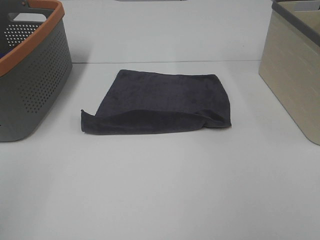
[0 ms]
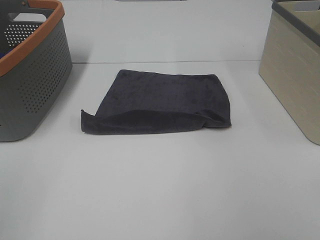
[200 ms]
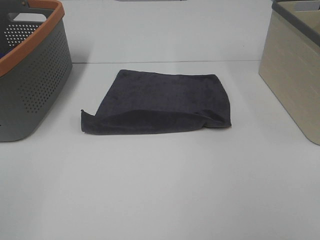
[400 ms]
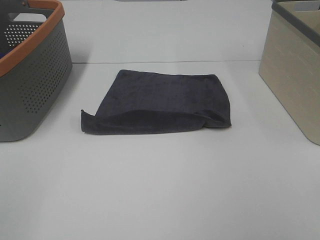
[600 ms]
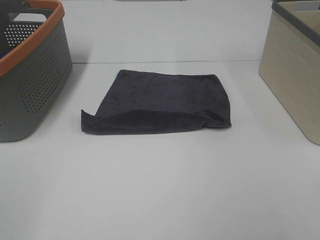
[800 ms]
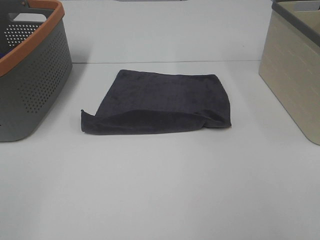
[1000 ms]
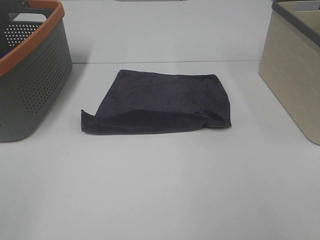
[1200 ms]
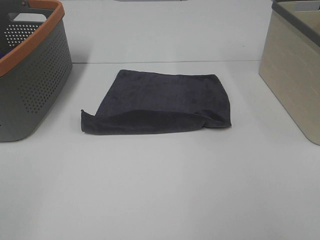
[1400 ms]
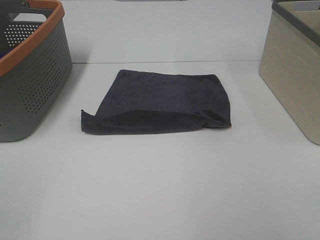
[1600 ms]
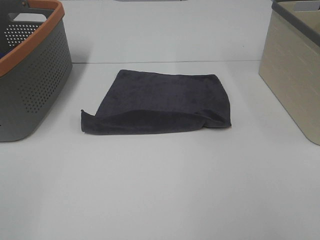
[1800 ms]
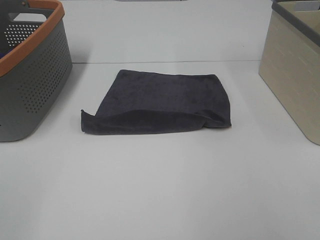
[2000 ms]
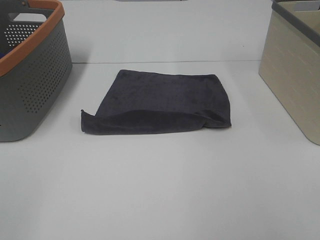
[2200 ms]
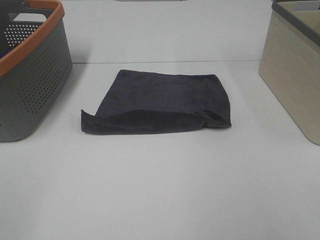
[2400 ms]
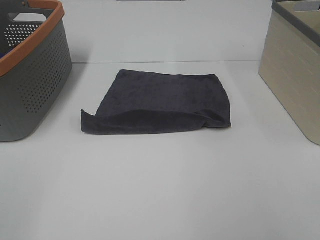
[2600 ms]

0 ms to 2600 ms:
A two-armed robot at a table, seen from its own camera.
Task of the whole recording: Remove the towel and place it.
1200 ms to 2600 ms: Both grippers stay about where they are.

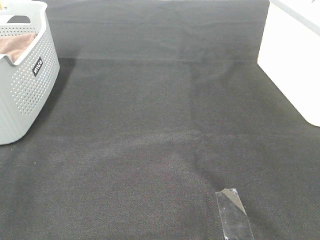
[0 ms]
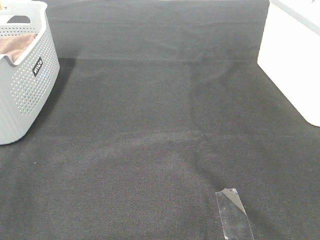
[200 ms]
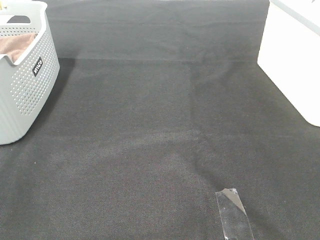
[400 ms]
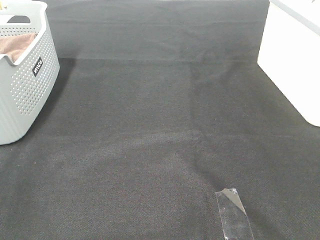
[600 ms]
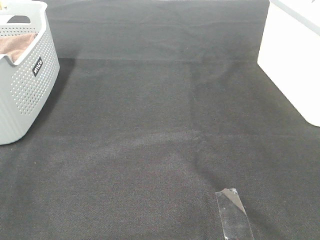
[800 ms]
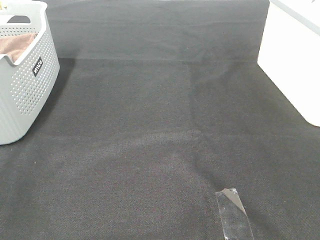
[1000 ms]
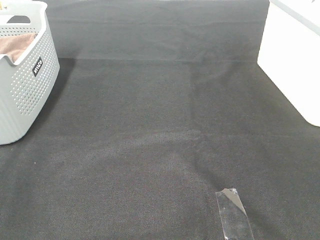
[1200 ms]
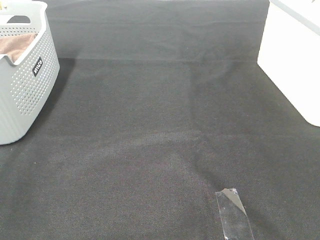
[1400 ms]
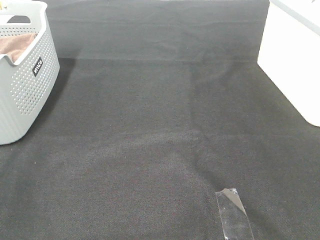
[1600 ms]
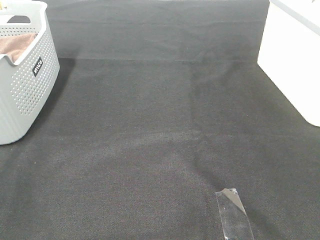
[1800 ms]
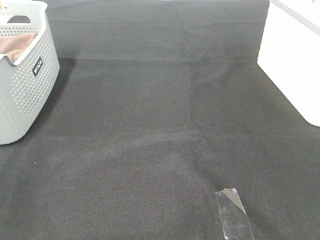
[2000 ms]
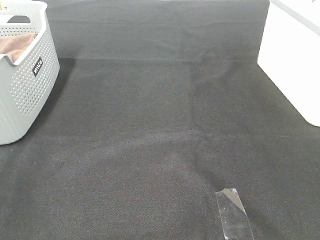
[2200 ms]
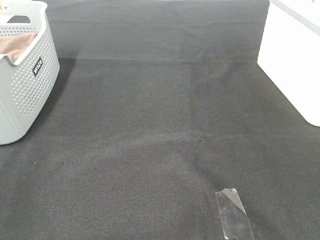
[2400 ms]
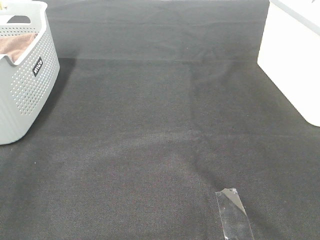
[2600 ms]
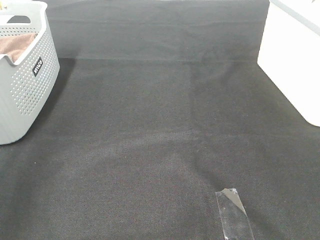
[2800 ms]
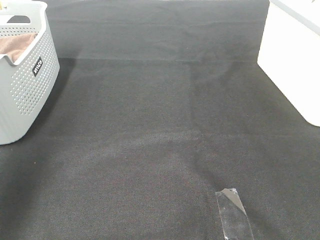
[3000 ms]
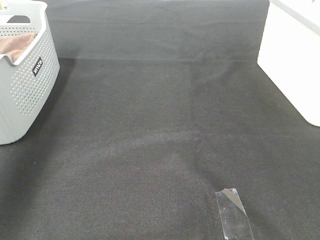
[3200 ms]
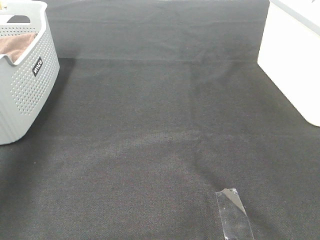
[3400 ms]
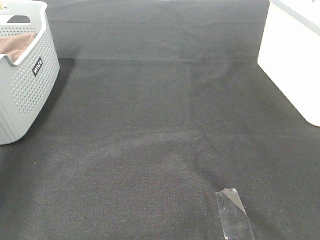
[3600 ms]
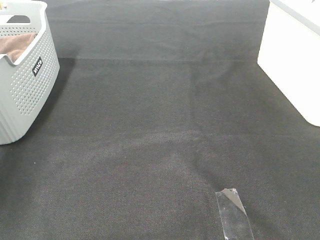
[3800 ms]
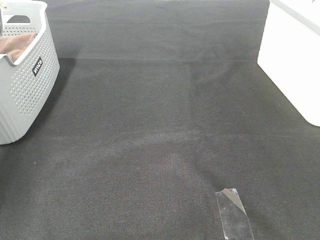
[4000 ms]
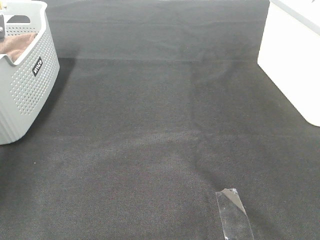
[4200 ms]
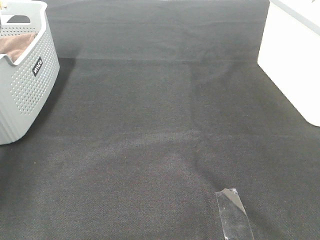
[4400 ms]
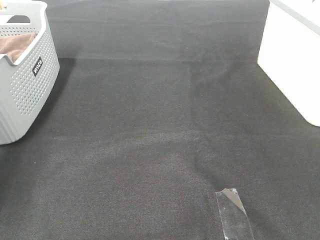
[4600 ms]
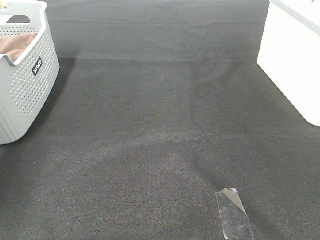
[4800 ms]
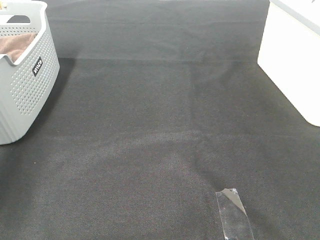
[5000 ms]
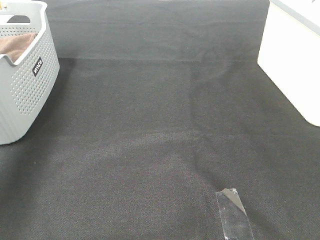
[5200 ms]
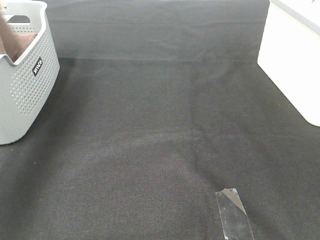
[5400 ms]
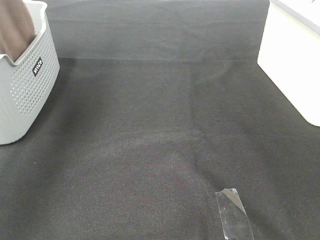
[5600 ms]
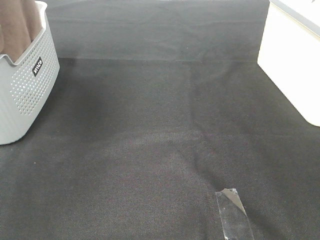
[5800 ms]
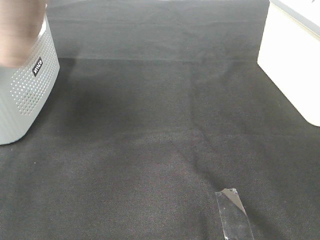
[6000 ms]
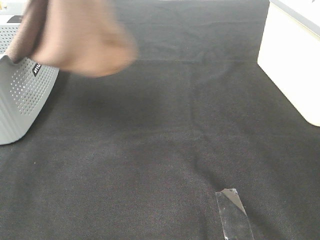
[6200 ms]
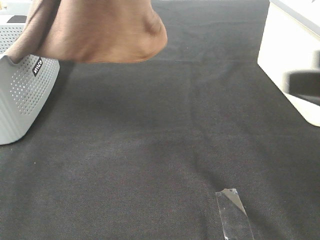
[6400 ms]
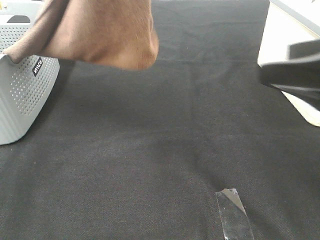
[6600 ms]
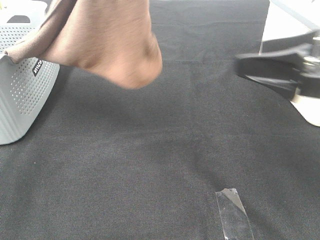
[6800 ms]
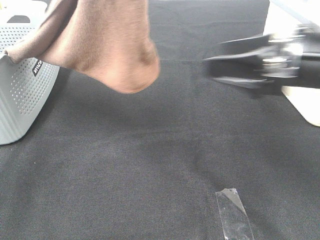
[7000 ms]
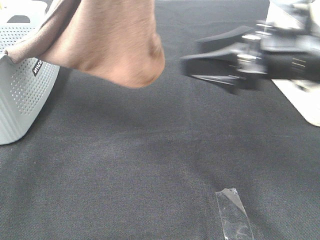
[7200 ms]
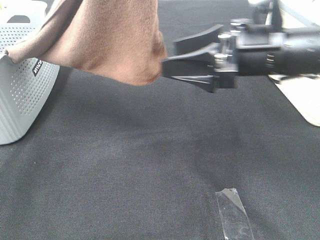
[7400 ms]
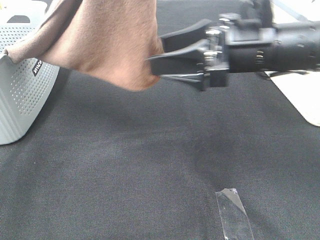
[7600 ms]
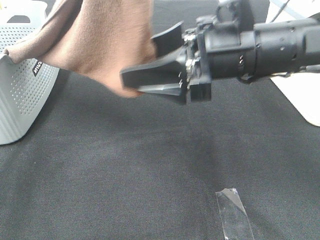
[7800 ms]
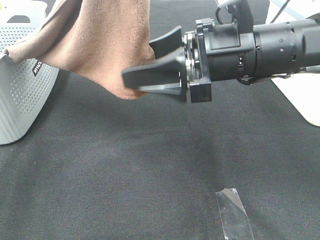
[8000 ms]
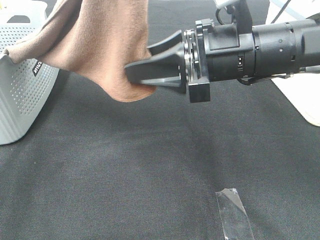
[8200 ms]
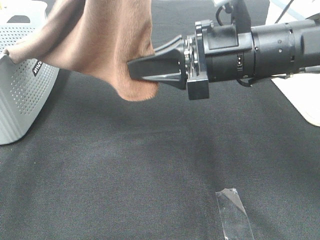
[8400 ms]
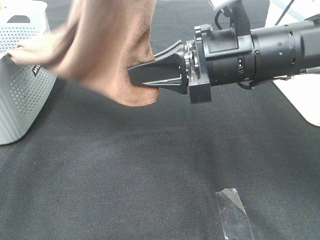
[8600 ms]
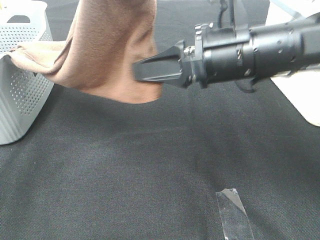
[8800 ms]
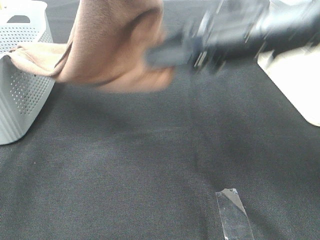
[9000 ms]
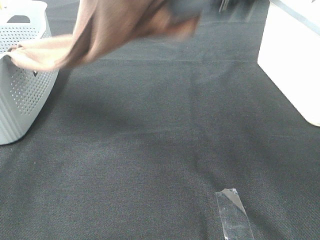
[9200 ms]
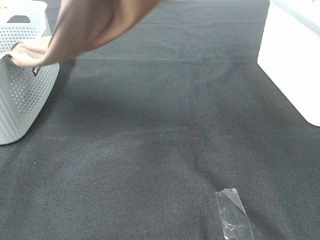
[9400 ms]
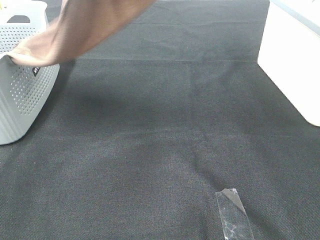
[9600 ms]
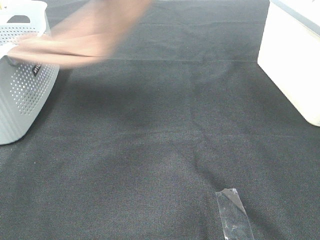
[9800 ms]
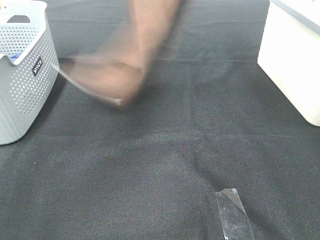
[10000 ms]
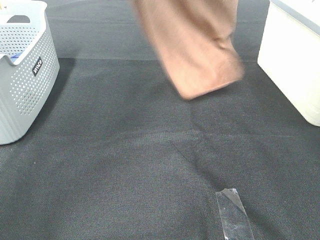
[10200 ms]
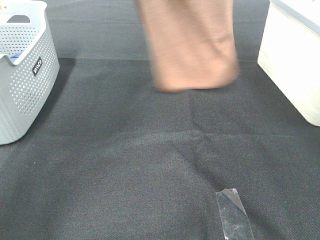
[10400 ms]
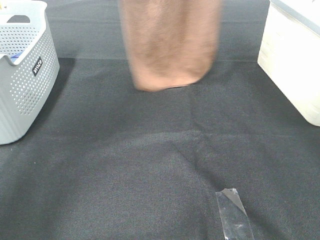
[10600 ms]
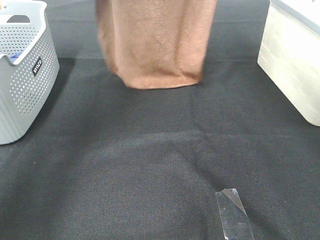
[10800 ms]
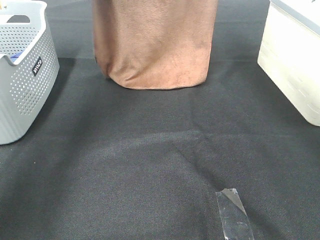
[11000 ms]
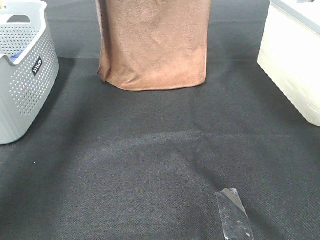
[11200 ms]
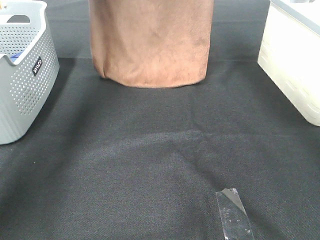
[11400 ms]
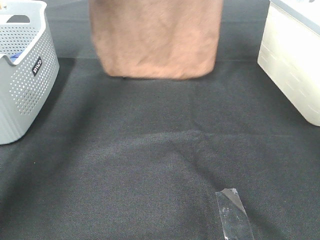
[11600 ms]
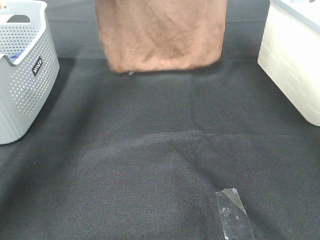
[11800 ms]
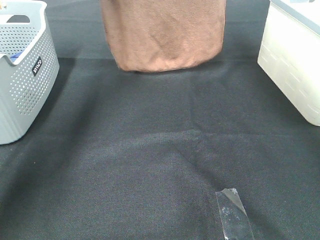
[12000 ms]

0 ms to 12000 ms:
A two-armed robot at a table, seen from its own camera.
Task of the whole recording: Remove the towel and place it.
Step, 6000 ms to 9000 ms: Right hand: grab a corner of the brown towel and straighten it.
0 ms to 1600 ms: Both grippers stay about where they are.
1600 ms to 3000 ms: The left gripper is displaced forward and upward by approximately 30 cm.
3000 ms to 4400 ms: The left gripper shifts roughly 30 cm forward and downward, and closes.
4400 ms to 6000 ms: The left gripper shifts some 40 cm upward, to the right and backward; the right gripper shifts by some 5 cm.
6000 ms to 7600 ms: The left gripper heads to the right and backward, covering some 10 cm. Meanwhile the right gripper moves forward and to the left, roughly 25 cm.
7600 ms to 9000 ms: The right gripper shifts approximately 5 cm upward, and closes its fingers.
9000 ms to 10400 ms: The left gripper travels forward by roughly 20 cm. Meanwhile the right gripper shifts about 25 cm upward and forward.
10400 ms to 12000 ms: The two grippers go roughly 10 cm forward.

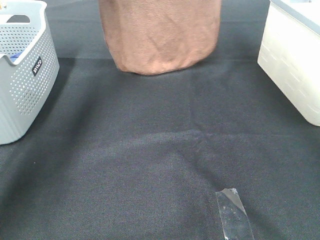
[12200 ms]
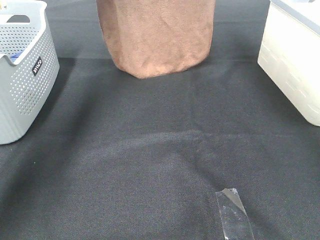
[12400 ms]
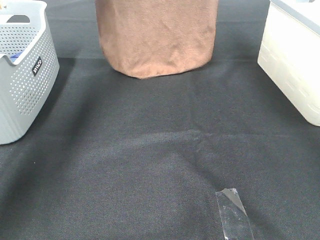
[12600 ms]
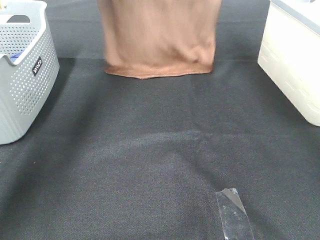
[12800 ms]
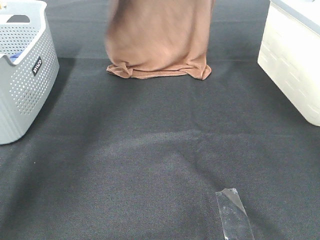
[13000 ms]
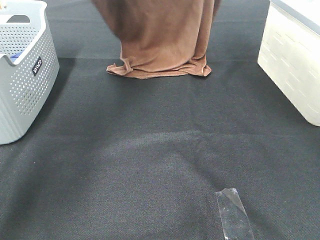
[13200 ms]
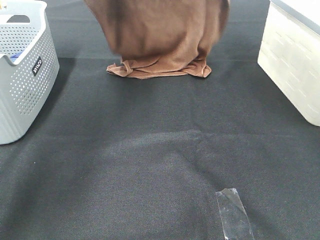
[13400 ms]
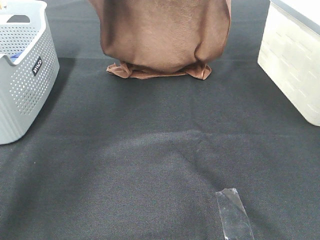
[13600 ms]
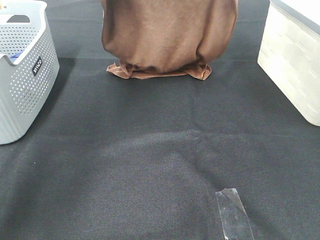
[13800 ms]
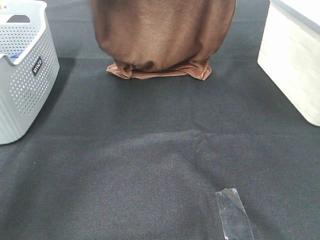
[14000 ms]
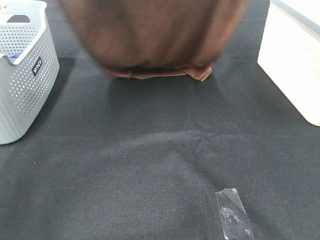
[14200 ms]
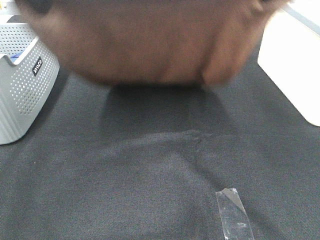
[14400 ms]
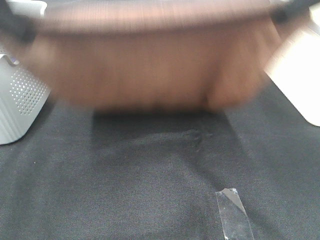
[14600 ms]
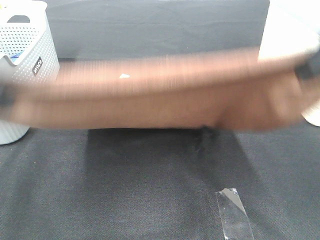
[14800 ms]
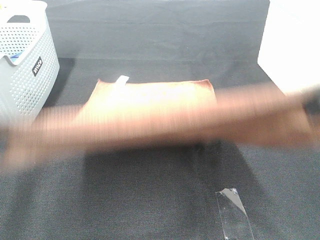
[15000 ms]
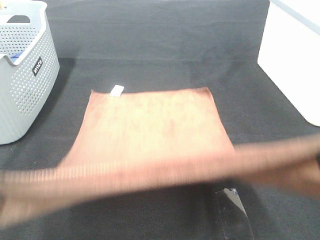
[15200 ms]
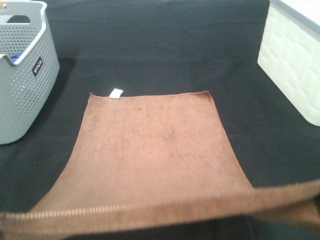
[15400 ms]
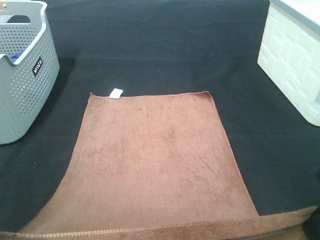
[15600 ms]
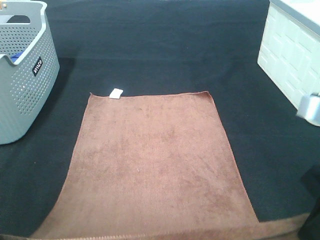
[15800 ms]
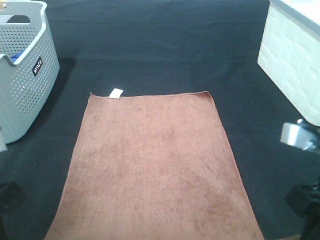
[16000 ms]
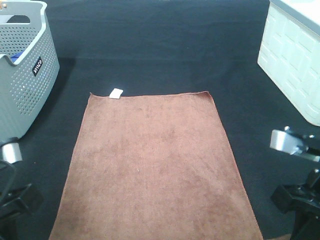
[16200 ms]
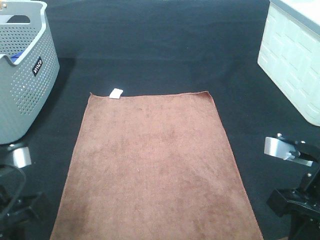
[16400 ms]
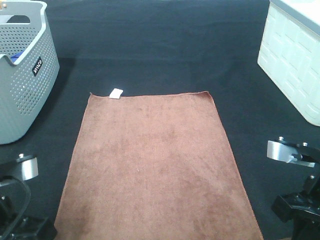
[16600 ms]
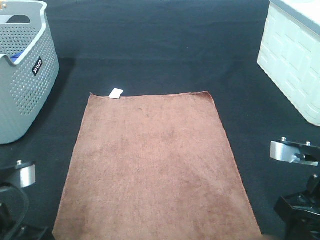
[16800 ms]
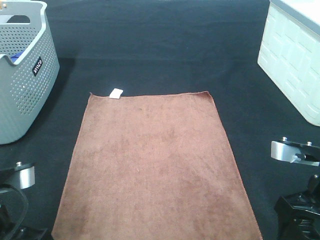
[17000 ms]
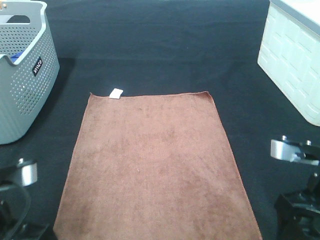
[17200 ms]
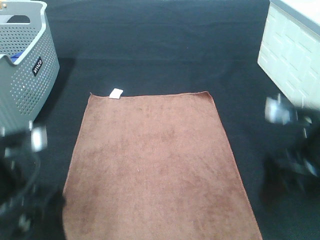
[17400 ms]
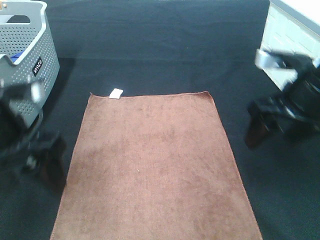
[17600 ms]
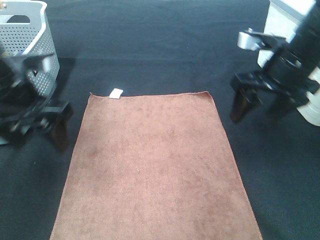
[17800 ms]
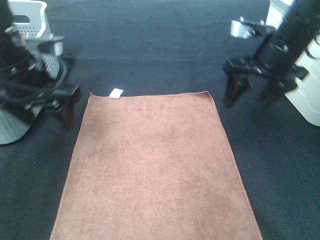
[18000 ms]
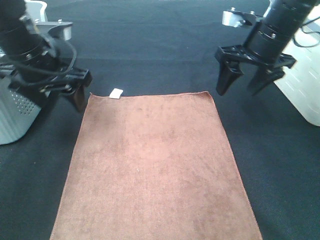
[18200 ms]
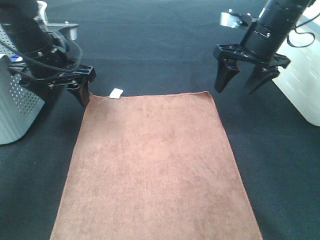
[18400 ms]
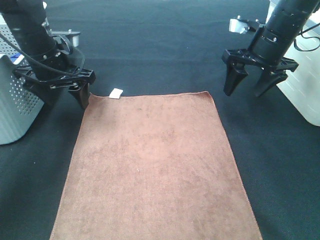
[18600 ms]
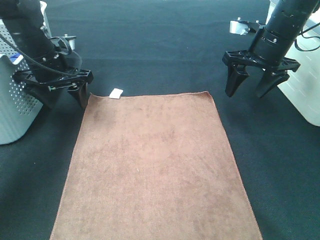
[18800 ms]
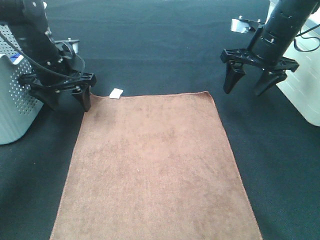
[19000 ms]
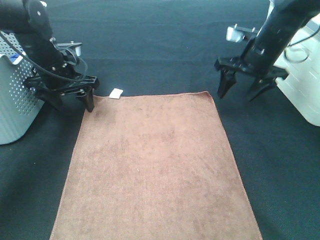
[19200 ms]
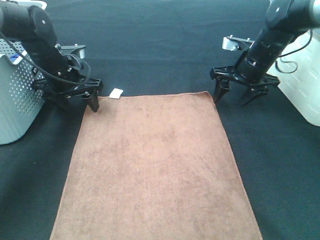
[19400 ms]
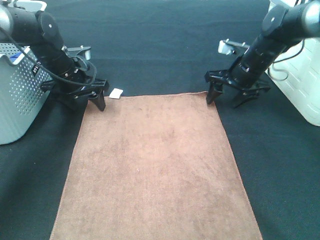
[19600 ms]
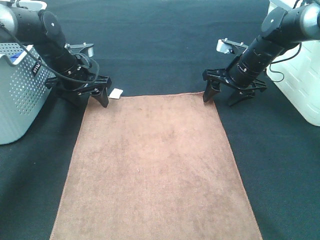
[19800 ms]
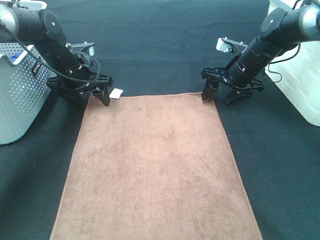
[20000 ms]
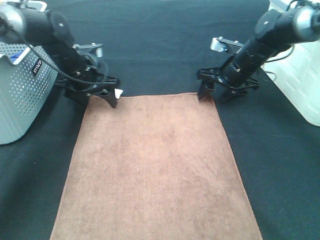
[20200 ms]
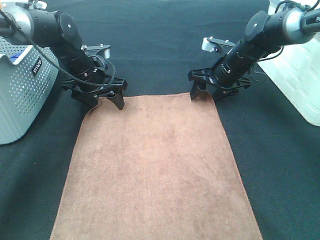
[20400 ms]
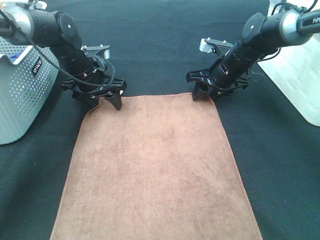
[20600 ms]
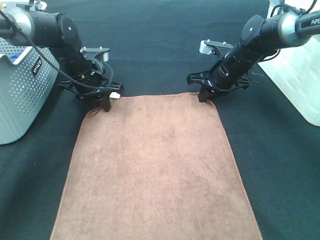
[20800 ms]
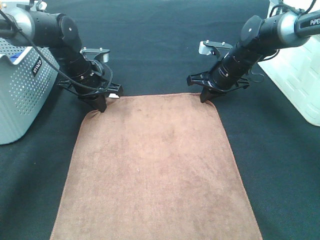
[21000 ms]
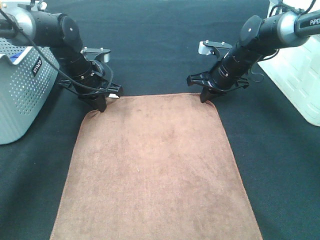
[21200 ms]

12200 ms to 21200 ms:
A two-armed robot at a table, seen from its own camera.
Task of the whole recording: Remove the towel and place it.
Step, 13800 ms to 19400 ms: Left hand:adjust the brown towel.
Step, 13800 ms to 20400 ms: Right hand:adjust the brown towel.
12200 ms to 13800 ms: The grippers both shift backward by some 5 cm.
13800 ms to 15200 ms: The two grippers go some 35 cm backward.
15200 ms to 16600 ms: The grippers both shift downward by approximately 15 cm.
16600 ms to 18200 ms: Both grippers move forward, some 25 cm. The right gripper opens its fingers, while the left gripper opens its fingers.
18200 ms to 19800 ms: The left gripper is displaced forward and downward by some 15 cm. The right gripper is displaced downward and forward by approximately 15 cm.
19800 ms to 21200 ms: The right gripper closes; the left gripper closes its fingers.
